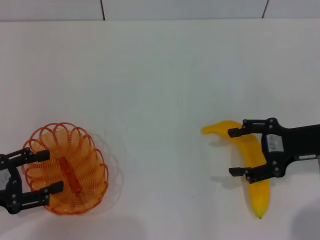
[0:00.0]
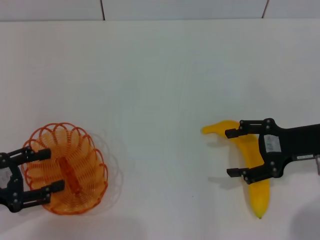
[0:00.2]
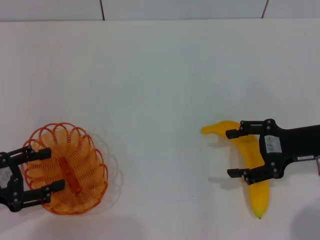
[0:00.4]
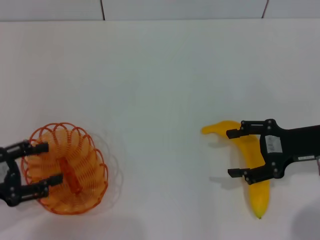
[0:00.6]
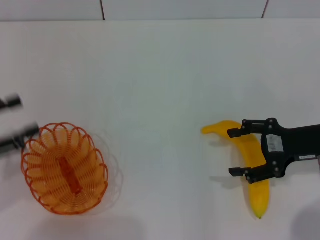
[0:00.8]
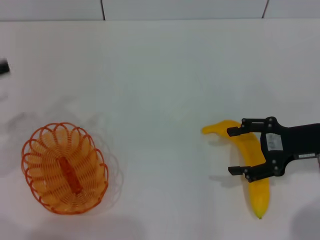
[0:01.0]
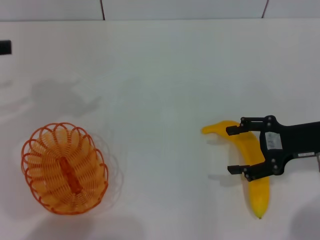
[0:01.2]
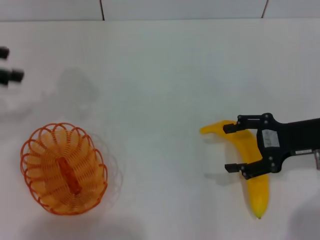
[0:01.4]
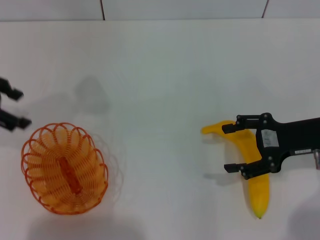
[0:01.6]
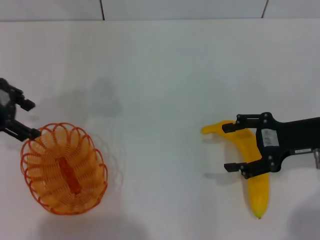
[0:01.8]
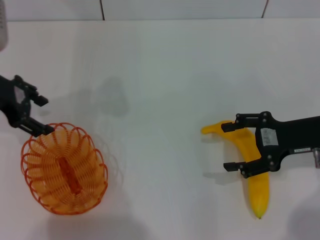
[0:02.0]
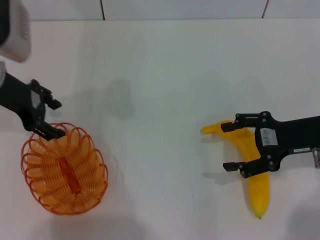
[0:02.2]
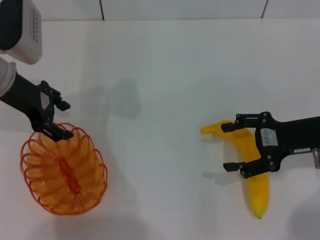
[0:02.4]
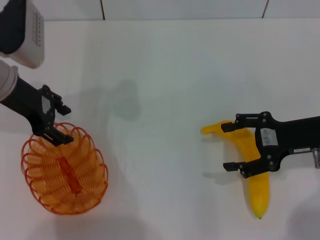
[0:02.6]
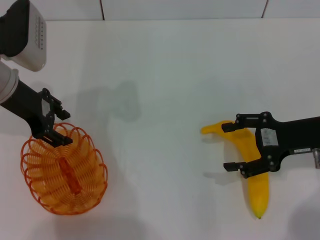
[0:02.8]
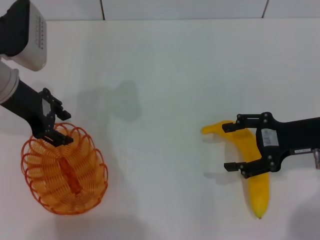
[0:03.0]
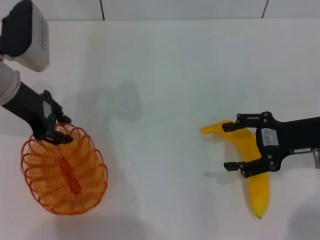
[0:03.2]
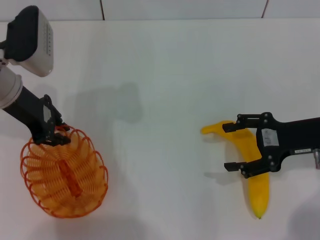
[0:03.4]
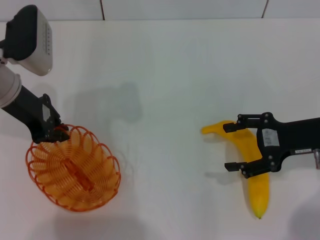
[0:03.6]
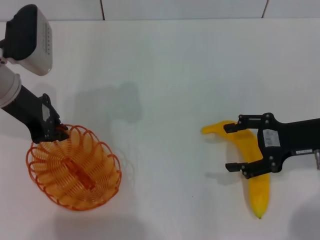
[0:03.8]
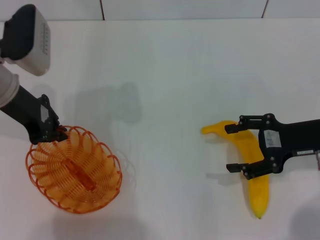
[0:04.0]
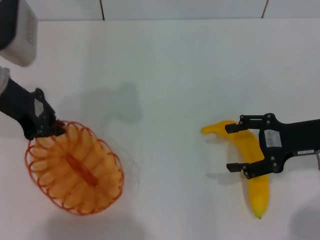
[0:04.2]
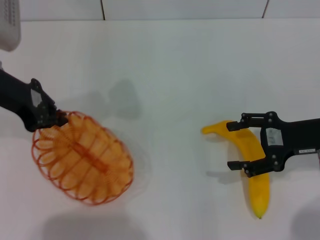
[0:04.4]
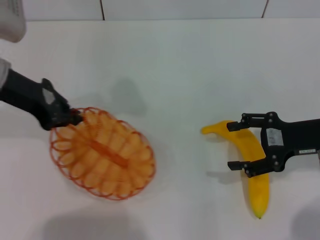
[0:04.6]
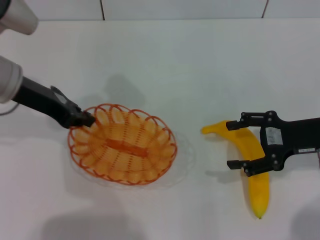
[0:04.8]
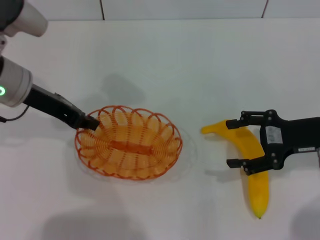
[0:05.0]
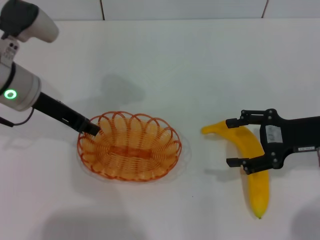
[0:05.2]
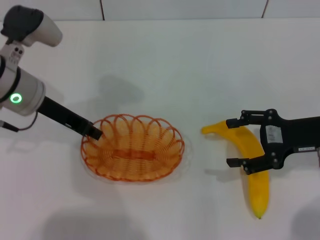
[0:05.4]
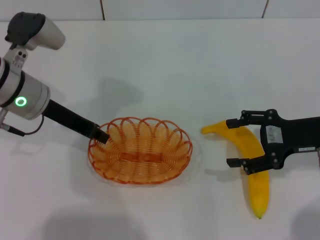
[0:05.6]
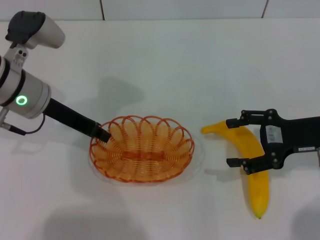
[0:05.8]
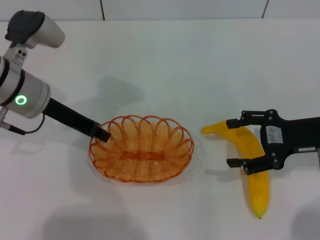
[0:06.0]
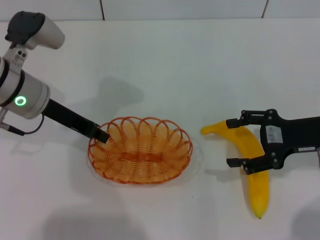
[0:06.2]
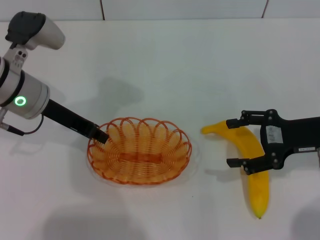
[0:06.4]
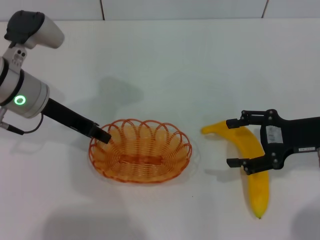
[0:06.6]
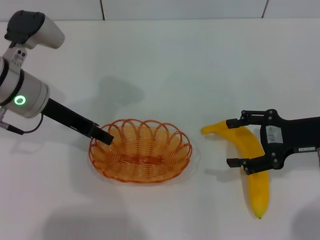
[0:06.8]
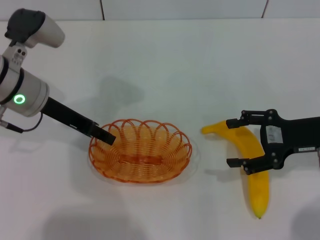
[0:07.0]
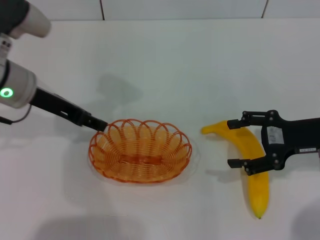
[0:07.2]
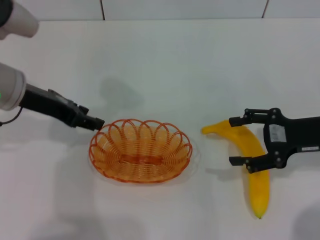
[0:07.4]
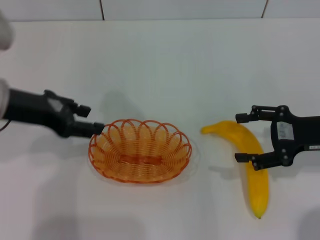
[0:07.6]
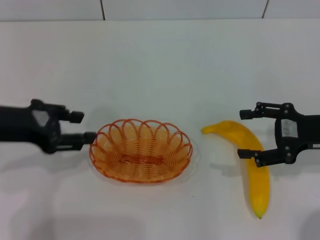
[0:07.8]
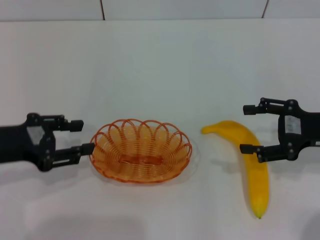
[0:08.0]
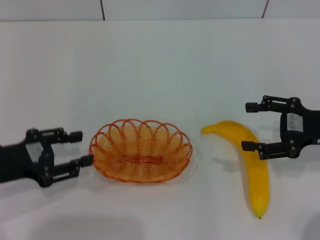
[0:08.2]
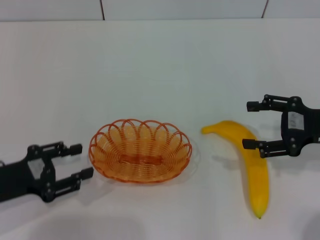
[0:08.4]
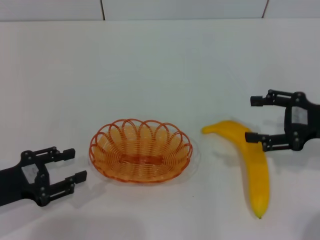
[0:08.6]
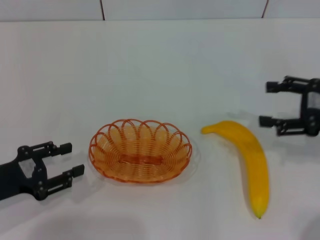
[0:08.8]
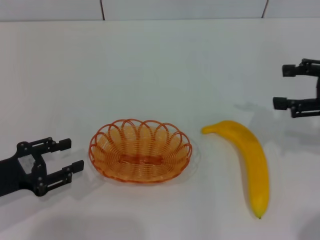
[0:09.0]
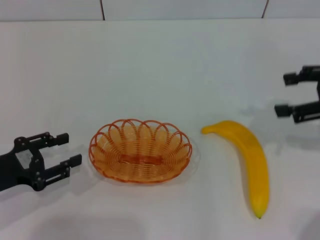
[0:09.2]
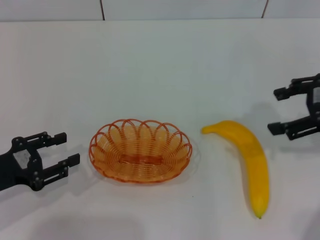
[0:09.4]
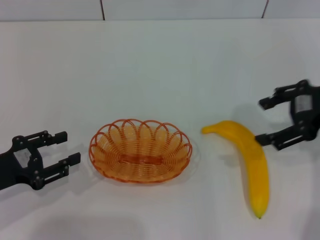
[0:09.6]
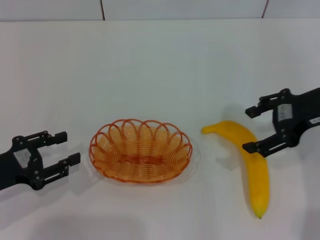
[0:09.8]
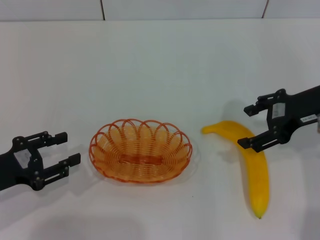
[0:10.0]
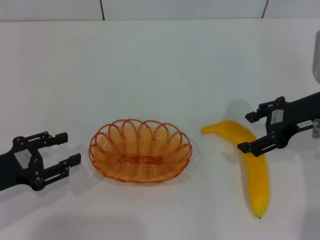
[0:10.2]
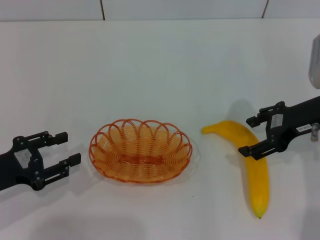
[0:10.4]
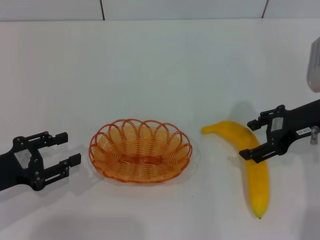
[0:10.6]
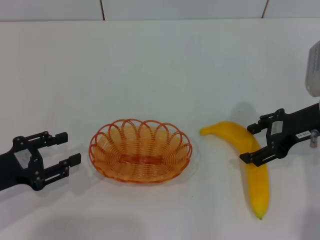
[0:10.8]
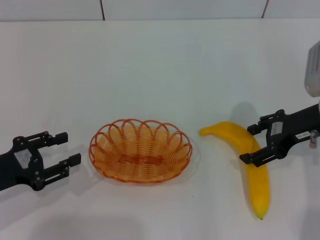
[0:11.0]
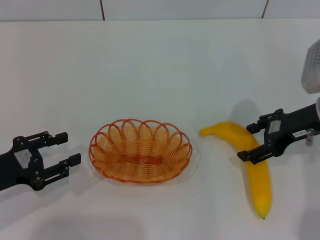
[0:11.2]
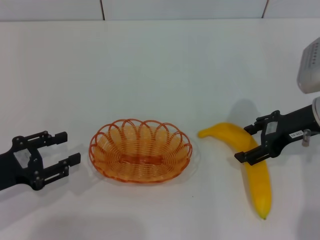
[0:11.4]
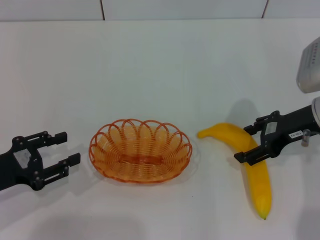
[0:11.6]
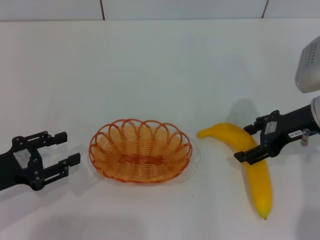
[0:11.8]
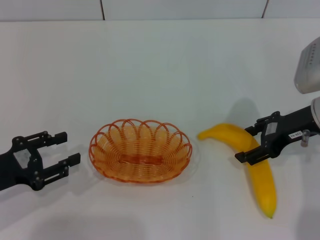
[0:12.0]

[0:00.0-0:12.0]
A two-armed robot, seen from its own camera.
Step, 0:00.0 to 0:04.2: Pick up the basket with the left gripper.
Step, 0:04.4 to 0:07.0: Place the basket in the center of view with the left gripper.
0:00.0 to 0:01.6: The left gripper travels forward and upward by roughly 20 cm.
0:01.6 to 0:03.0: The left gripper shifts roughly 10 cm to the right and downward.
0:03.0 to 0:04.4: The left gripper closes.
0:04.4 to 0:06.0: The left gripper shifts approximately 5 cm downward.
0:06.0 to 0:07.6: The left gripper is displaced backward by approximately 5 cm, and opens.
0:07.6 to 0:09.0: The left gripper moves downward, backward and to the left, some 15 cm. Meanwhile the right gripper goes some 5 cm upward.
0:09.0 to 0:10.4: The right gripper goes roughly 10 cm to the left.
0:10.4 to 0:12.0: The grippers stay close to where they were, moving slightly.

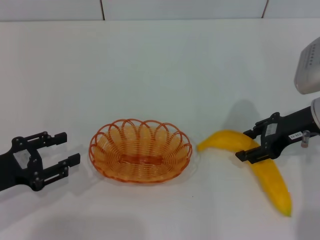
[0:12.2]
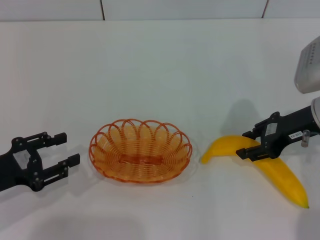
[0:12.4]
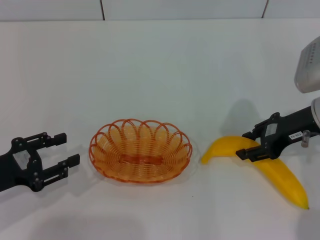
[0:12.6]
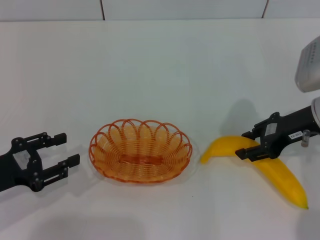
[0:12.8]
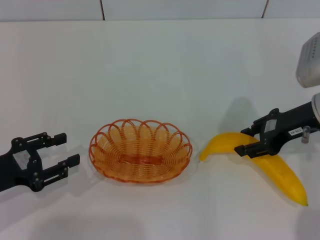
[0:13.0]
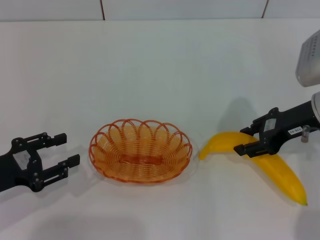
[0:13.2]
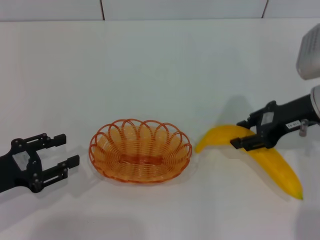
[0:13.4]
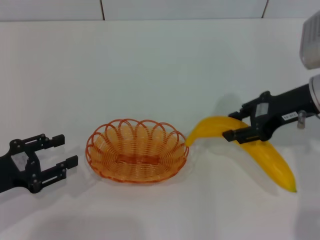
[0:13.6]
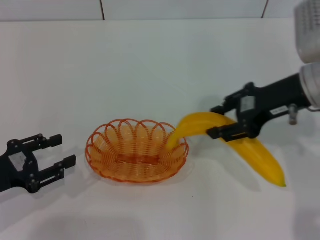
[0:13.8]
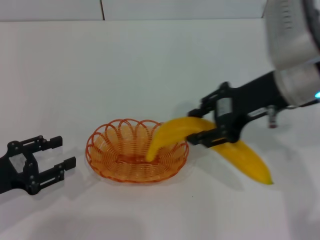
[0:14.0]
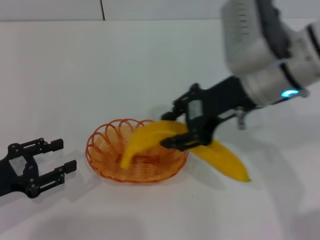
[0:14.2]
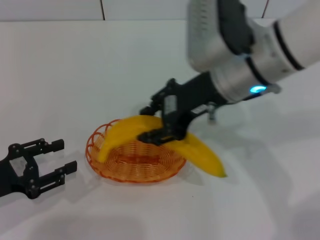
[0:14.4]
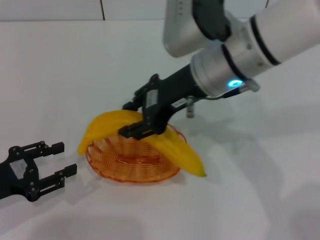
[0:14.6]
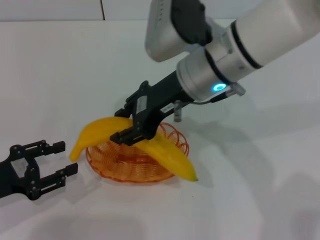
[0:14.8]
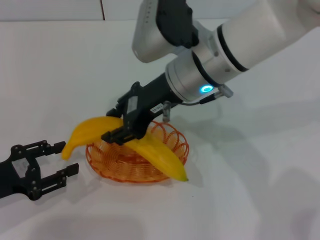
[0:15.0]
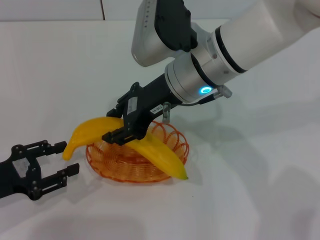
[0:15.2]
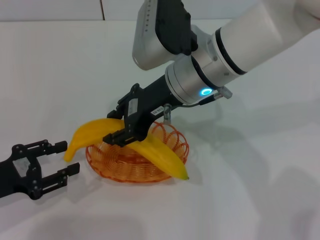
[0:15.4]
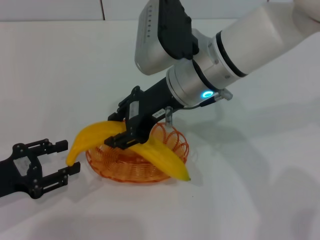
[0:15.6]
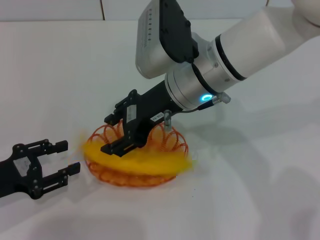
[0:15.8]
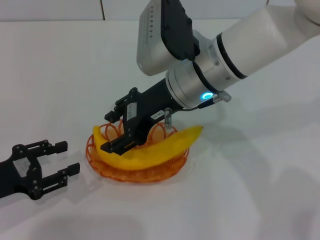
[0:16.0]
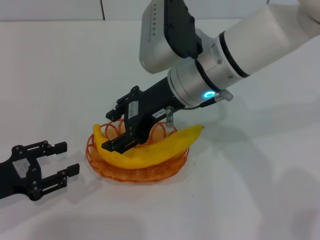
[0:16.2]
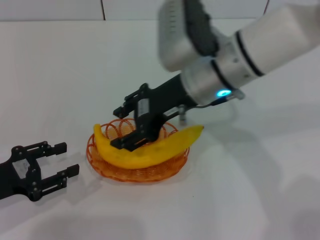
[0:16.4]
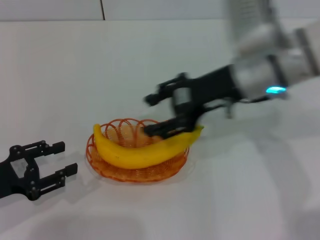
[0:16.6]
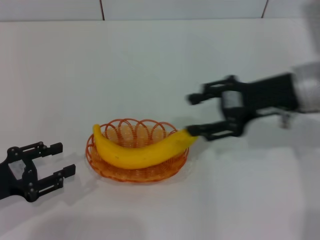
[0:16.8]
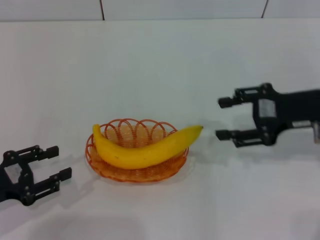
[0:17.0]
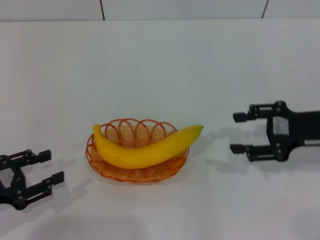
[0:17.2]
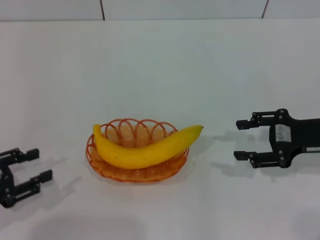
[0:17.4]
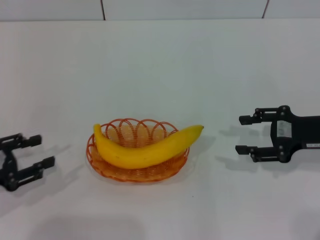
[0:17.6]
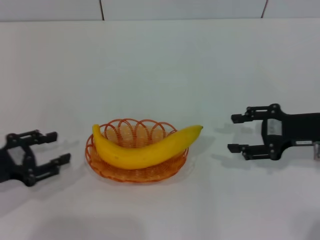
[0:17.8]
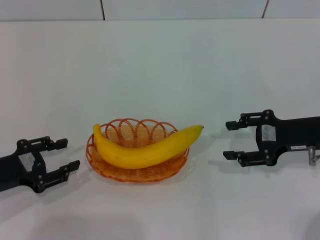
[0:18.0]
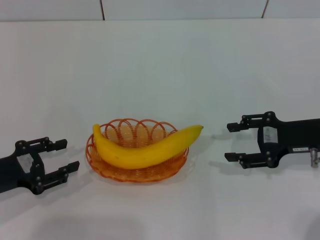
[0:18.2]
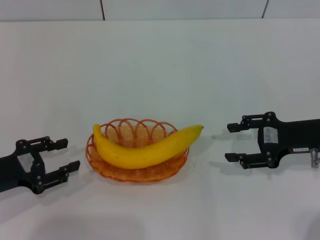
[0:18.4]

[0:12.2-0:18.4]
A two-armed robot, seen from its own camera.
Step, 0:13.6 to 0:15.8: Place the banana into the basket with the right gripper.
0:12.2 to 0:13.8: The right gripper shifts some 5 cm upward, and closes up.
0:13.8 to 0:15.4: The right gripper goes some 15 cm to the left.
0:15.4 to 0:16.8: The right gripper moves to the right, roughly 15 cm.
0:16.8 to 0:18.4: The right gripper is displaced downward and to the right by some 10 cm.
